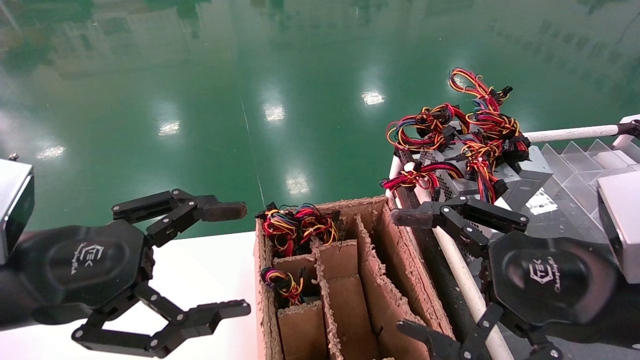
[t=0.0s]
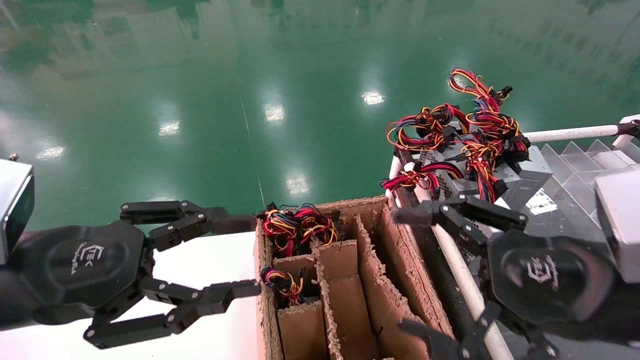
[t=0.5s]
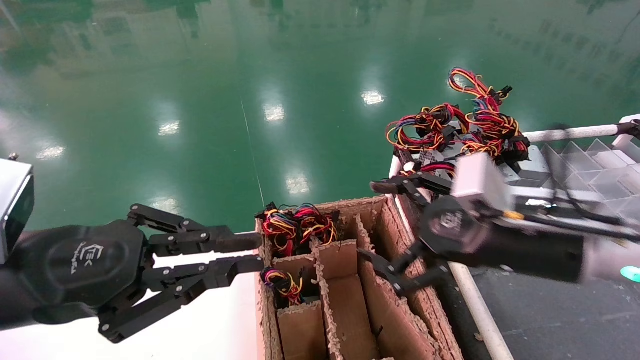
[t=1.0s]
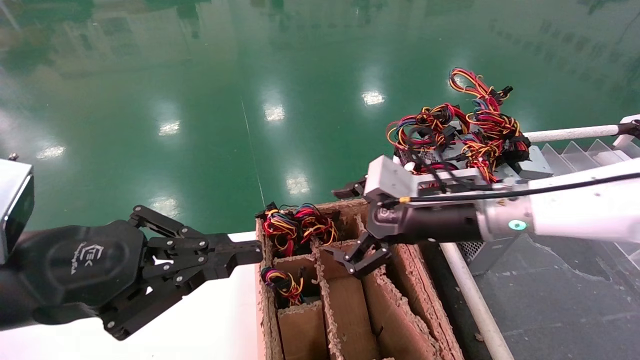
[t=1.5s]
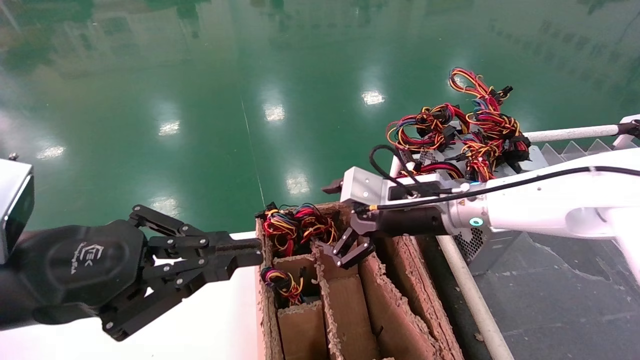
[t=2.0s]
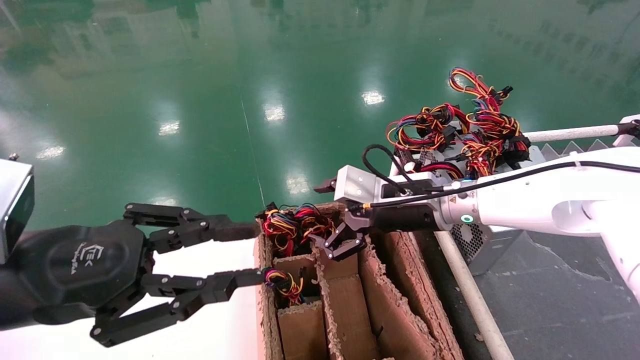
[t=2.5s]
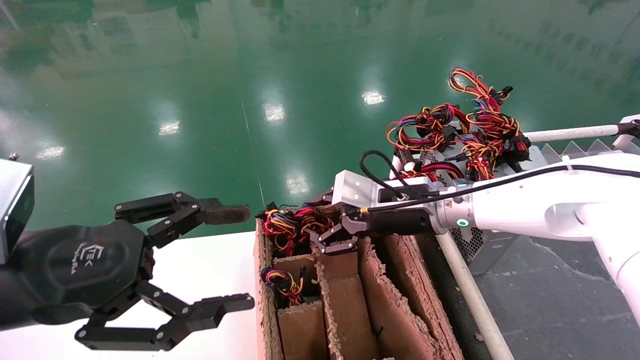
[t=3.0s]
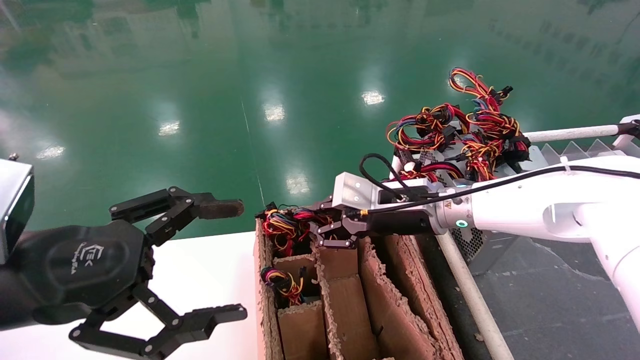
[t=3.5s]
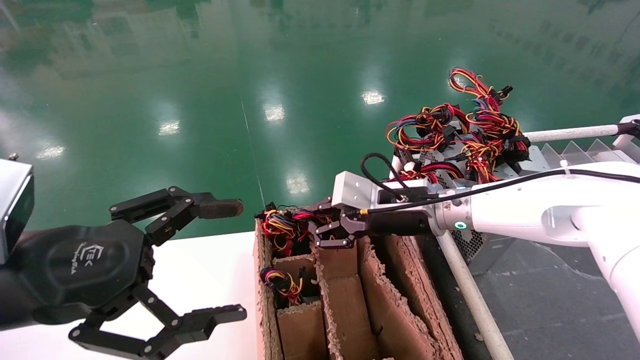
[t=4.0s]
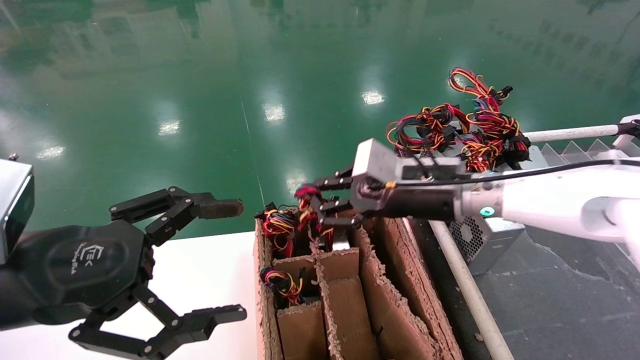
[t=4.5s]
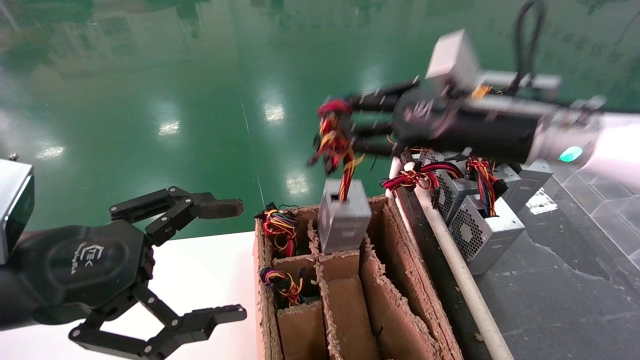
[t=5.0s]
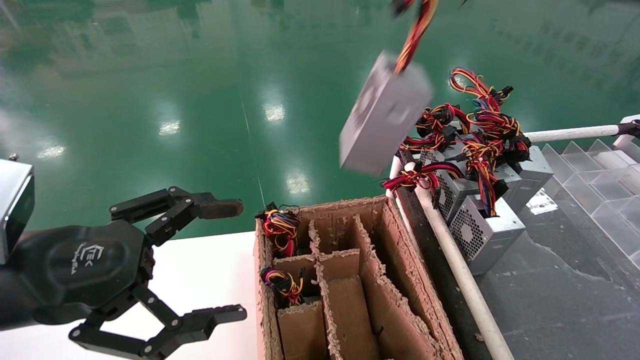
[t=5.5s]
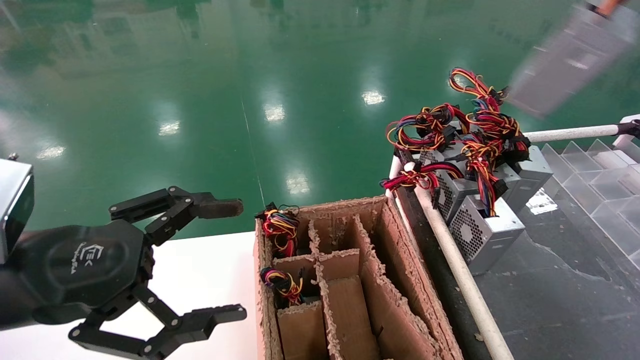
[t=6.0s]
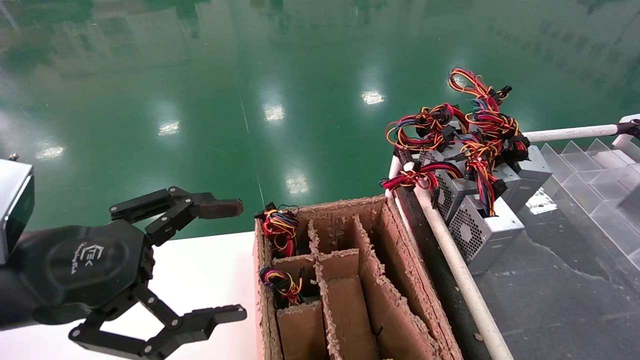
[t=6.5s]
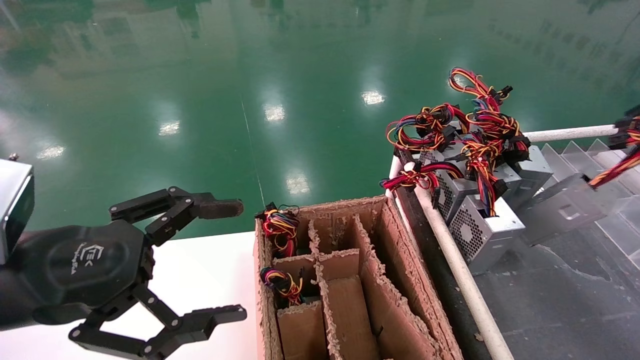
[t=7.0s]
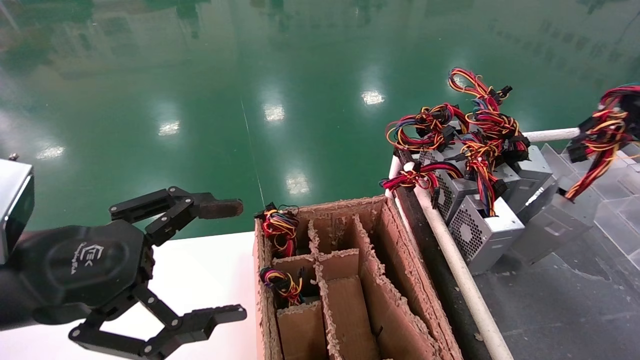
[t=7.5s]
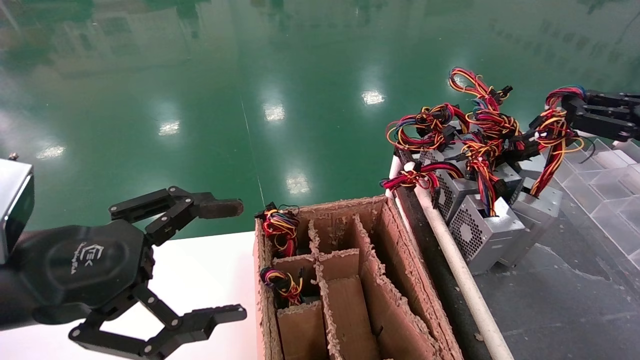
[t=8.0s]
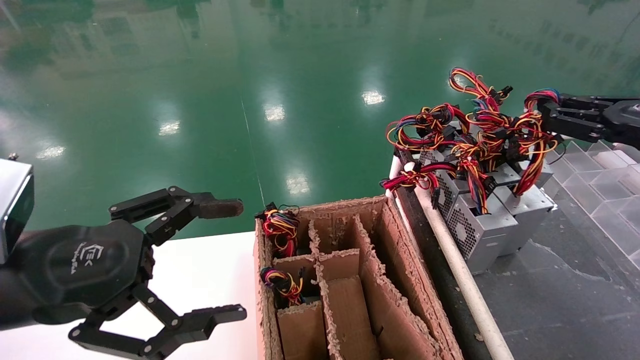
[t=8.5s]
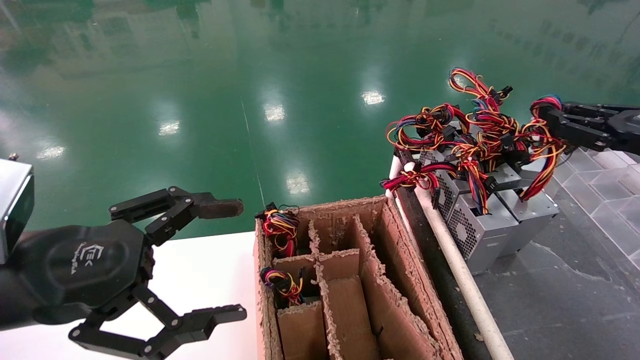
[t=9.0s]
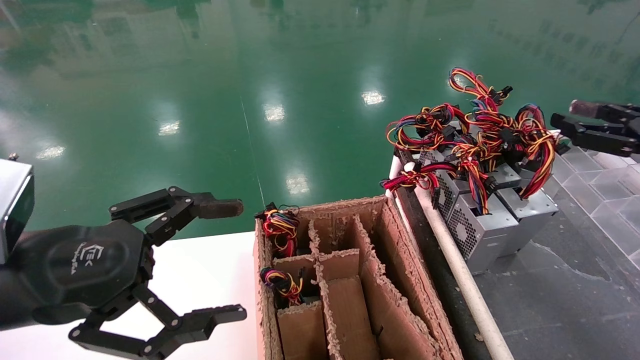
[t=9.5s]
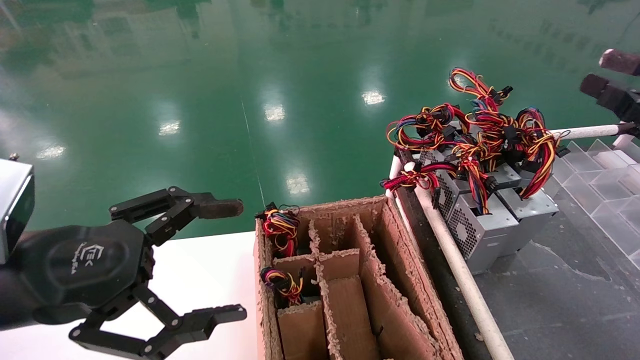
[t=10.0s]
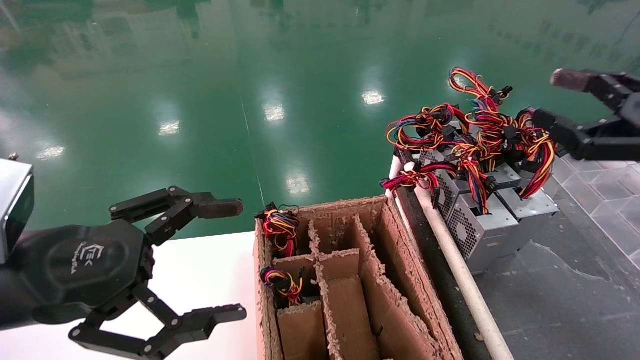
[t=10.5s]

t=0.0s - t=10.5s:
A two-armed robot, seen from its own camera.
Step, t=1.5s - t=4.0s: Grab and lift the power supply from the large box.
Step, t=4.5s - t=9.5s: Place the power supply on the operating table.
t=0.0s - t=2.0s: The left gripper closes its fingers, while the right gripper travels forward and to the left by approximately 25 cm.
t=2.0s - t=4.0s: The right gripper closes up. Meanwhile the left gripper opens.
t=4.0s - t=6.5s: The right gripper travels to the right and backward by roughly 50 cm.
t=6.5s - t=8.5s: The right gripper heads to the left, forward and downward, covering roughly 15 cm.
t=8.5s - t=10.5s: The right gripper moves some 5 cm, and opens its fingers.

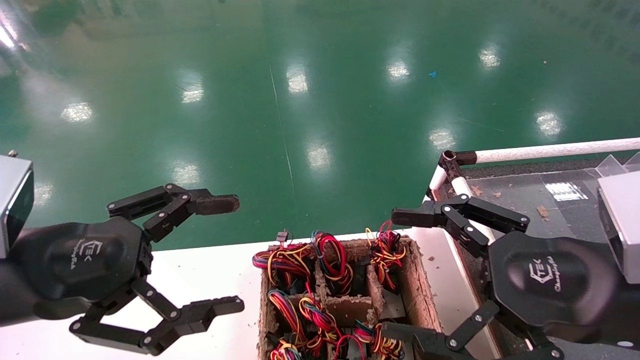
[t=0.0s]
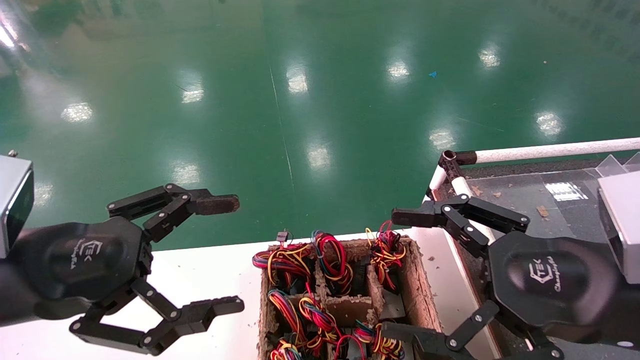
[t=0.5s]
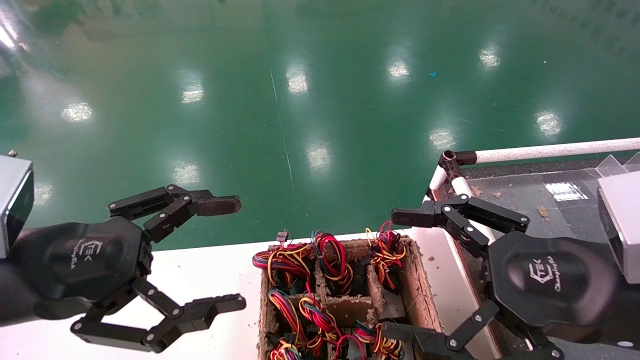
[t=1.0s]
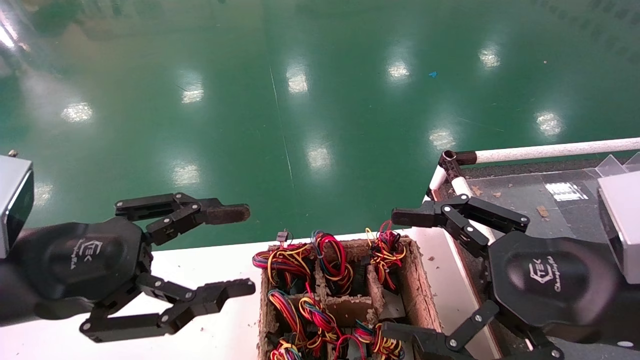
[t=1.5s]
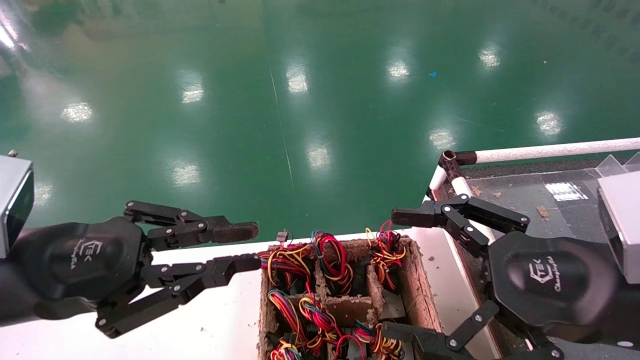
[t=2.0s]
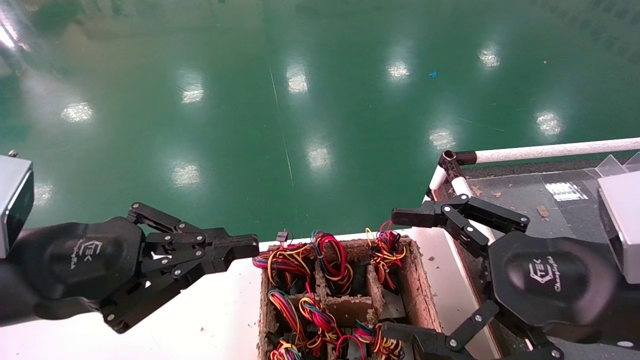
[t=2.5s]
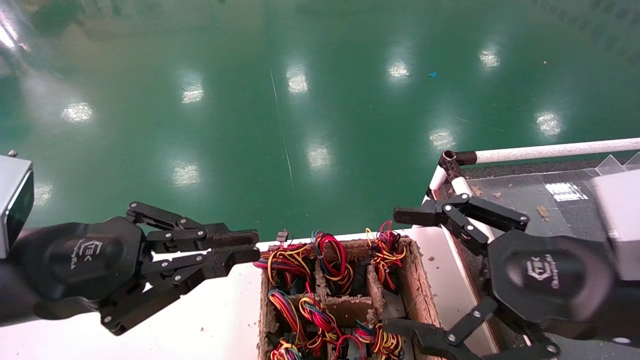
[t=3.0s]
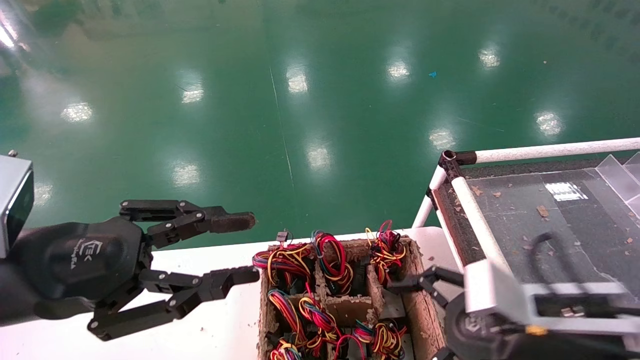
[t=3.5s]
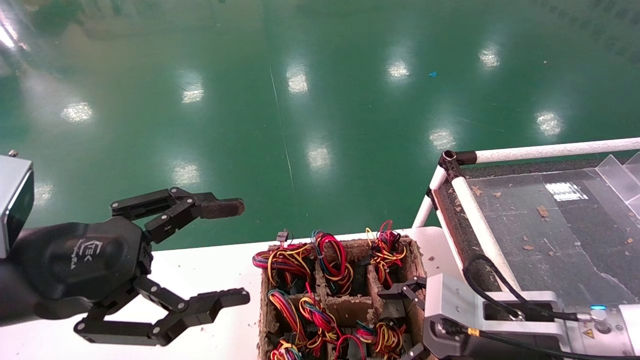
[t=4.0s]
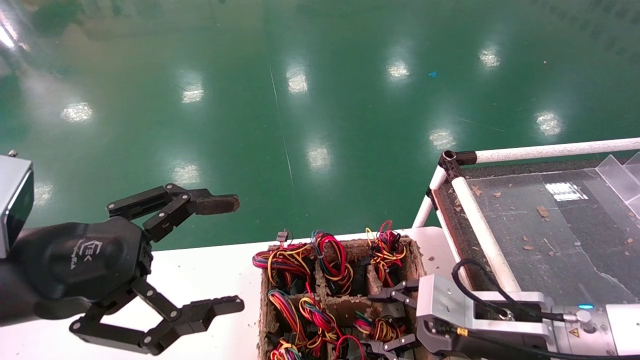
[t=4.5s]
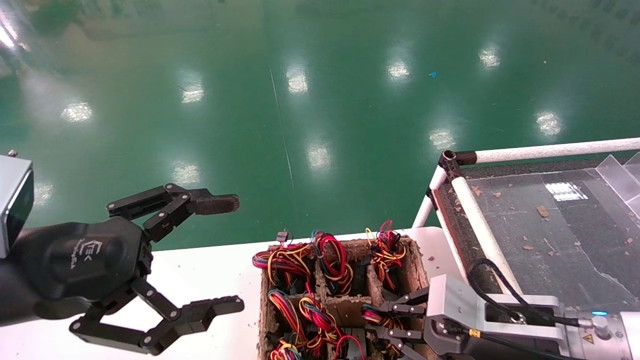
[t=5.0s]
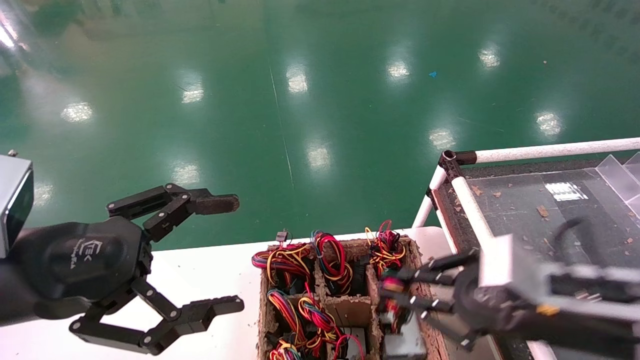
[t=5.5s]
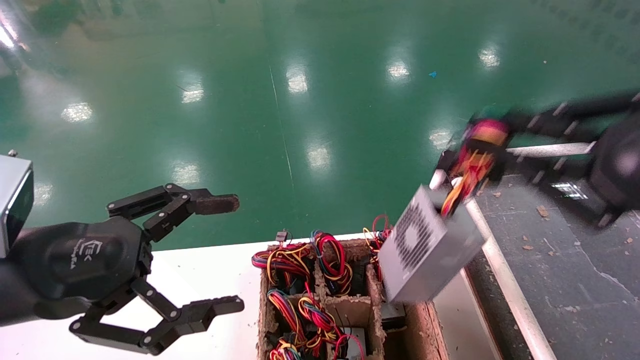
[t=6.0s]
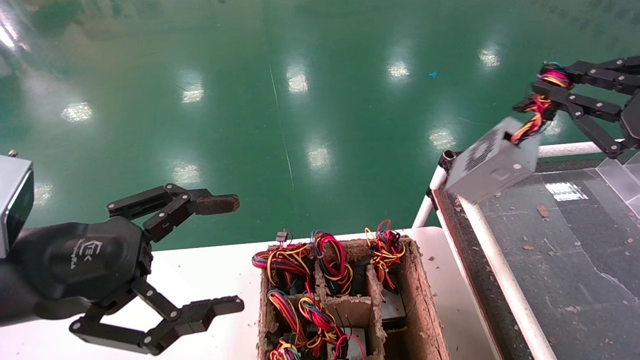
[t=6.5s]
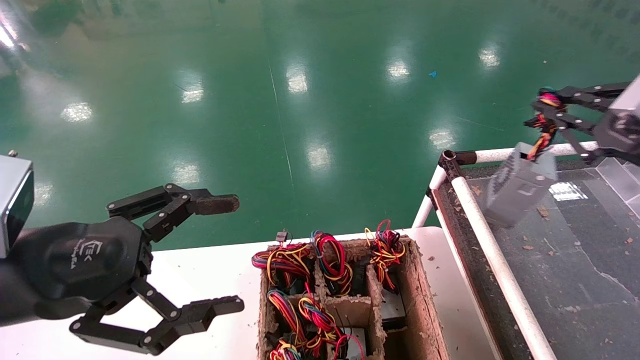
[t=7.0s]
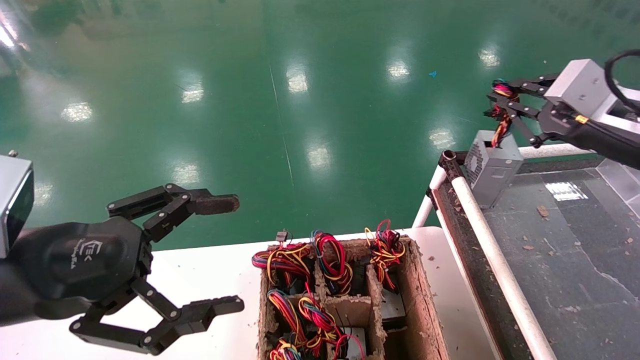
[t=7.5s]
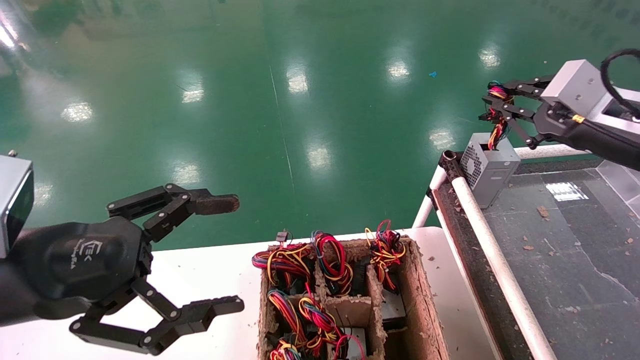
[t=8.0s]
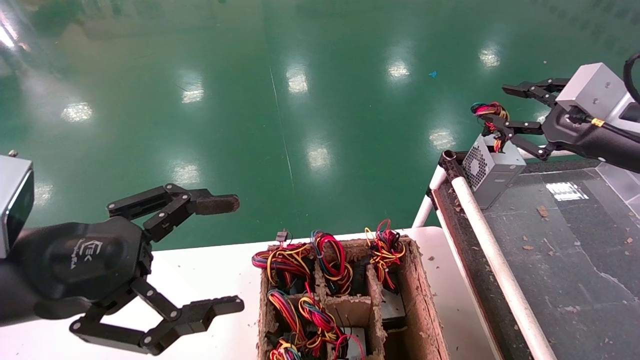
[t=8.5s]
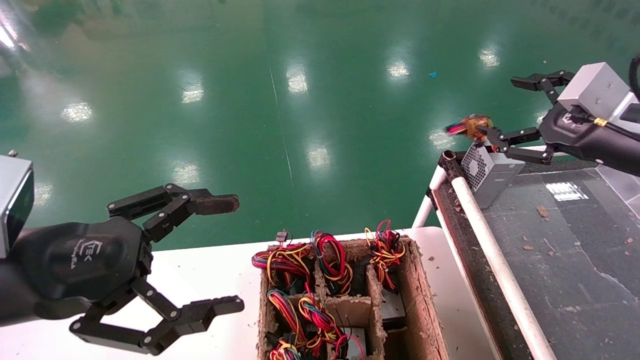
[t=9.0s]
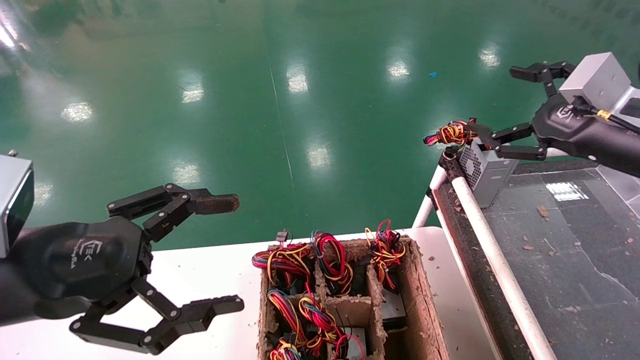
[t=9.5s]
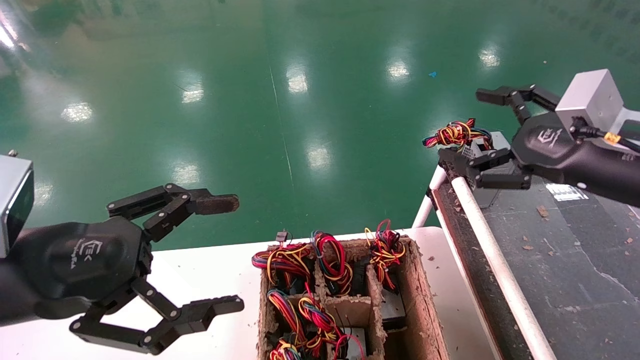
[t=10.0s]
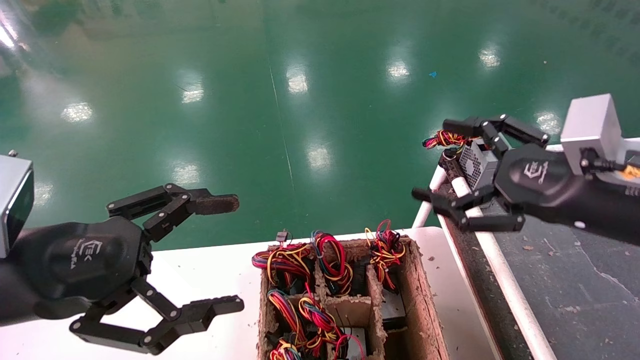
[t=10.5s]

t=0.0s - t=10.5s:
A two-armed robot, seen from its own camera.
Step, t=3.5s - t=5.5s: Grab and lift the power supply from the large box.
Step, t=6.0s - t=9.0s: Place the power supply on the operating table.
t=0.0s - t=2.0s: The left gripper closes its fingers.
t=2.0s - t=4.0s: The left gripper opens. The right gripper goes roughly 15 cm downward and forward.
t=4.0s - t=6.5s: The right gripper goes approximately 25 cm upward and to the right, and closes its fingers.
t=6.5s - t=8.5s: The right gripper is displaced forward by roughly 10 cm.
t=8.5s - t=10.5s: The right gripper travels to the left and backward by about 10 cm, and opens its fingers.
